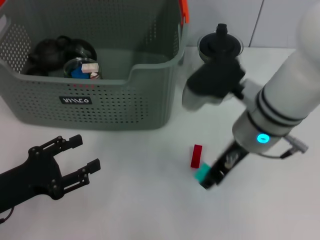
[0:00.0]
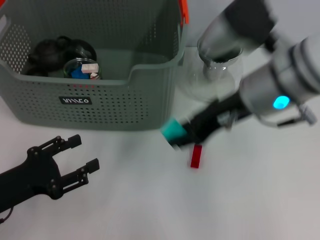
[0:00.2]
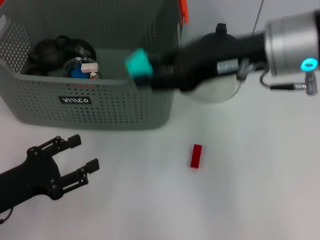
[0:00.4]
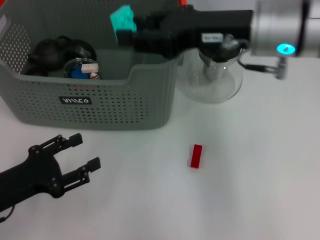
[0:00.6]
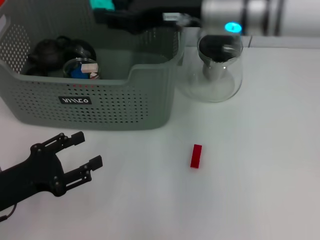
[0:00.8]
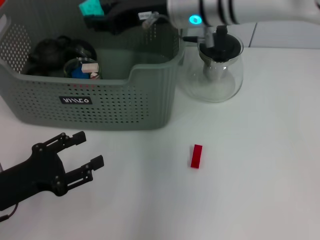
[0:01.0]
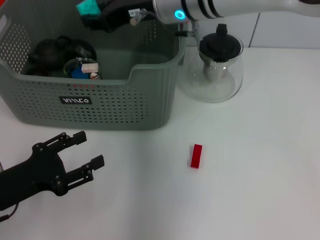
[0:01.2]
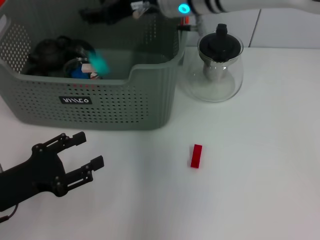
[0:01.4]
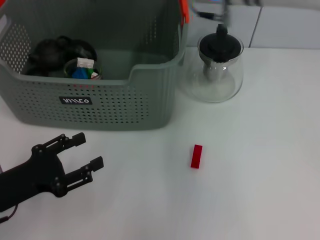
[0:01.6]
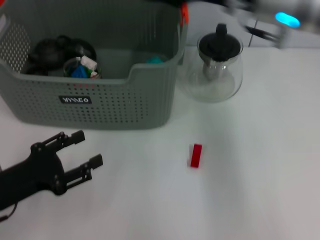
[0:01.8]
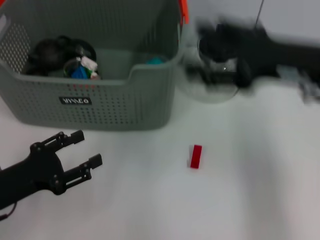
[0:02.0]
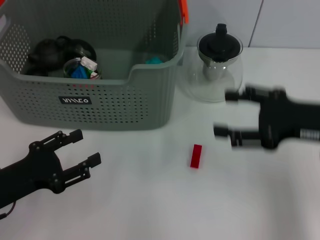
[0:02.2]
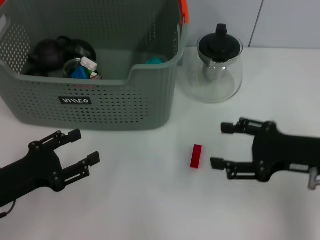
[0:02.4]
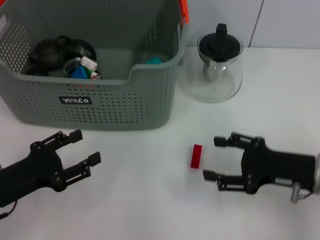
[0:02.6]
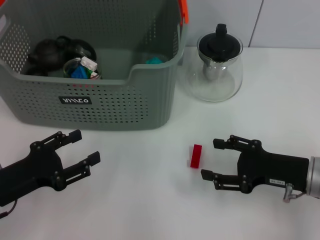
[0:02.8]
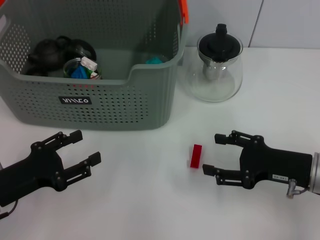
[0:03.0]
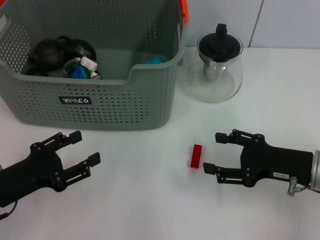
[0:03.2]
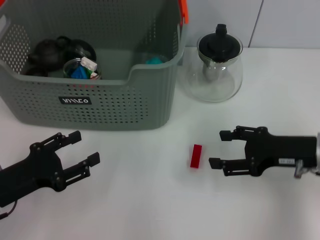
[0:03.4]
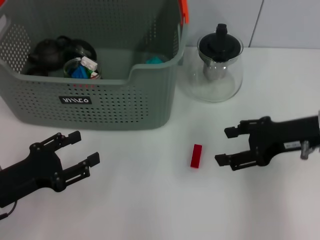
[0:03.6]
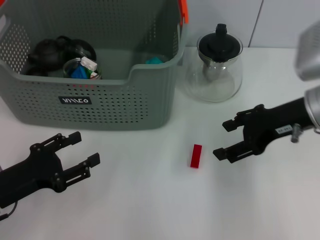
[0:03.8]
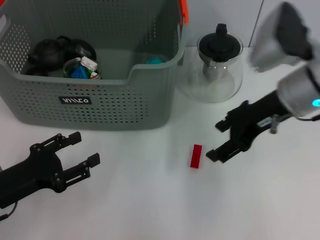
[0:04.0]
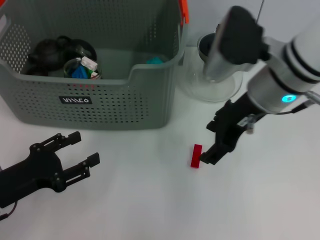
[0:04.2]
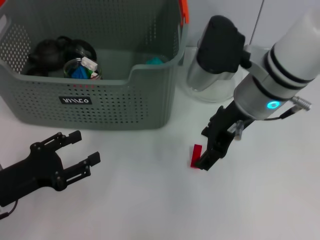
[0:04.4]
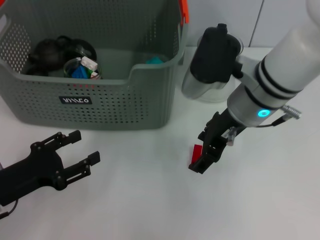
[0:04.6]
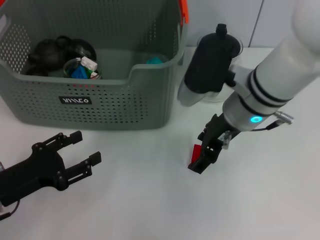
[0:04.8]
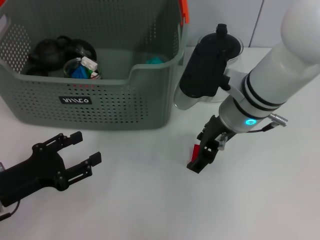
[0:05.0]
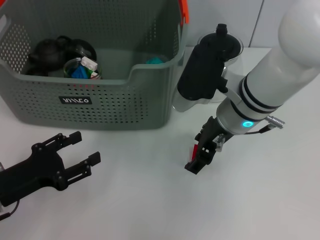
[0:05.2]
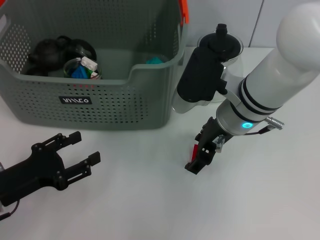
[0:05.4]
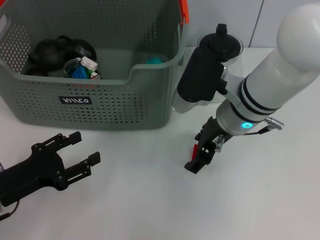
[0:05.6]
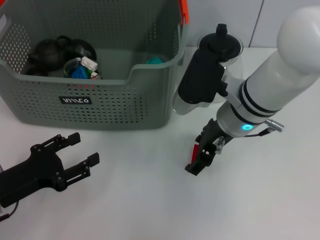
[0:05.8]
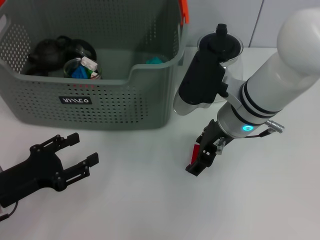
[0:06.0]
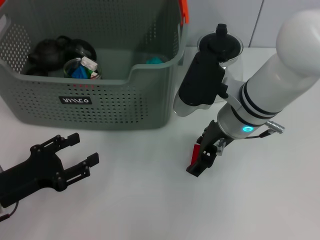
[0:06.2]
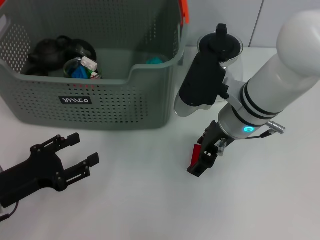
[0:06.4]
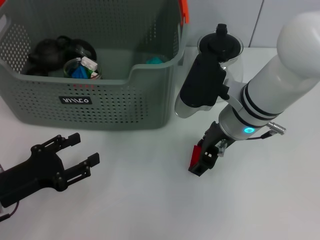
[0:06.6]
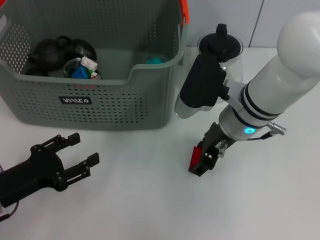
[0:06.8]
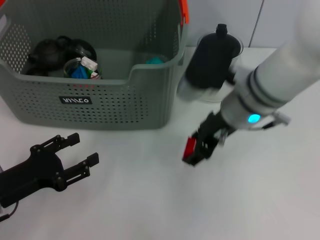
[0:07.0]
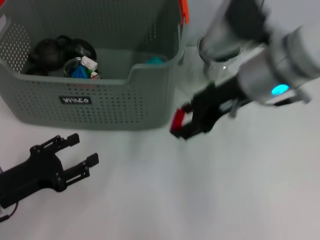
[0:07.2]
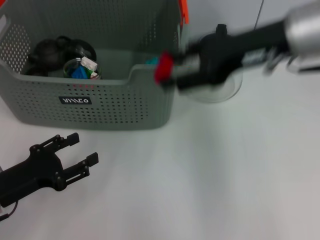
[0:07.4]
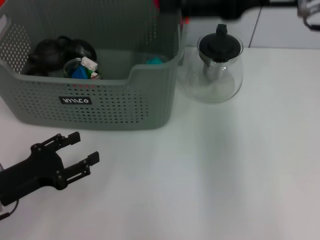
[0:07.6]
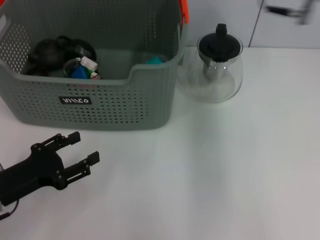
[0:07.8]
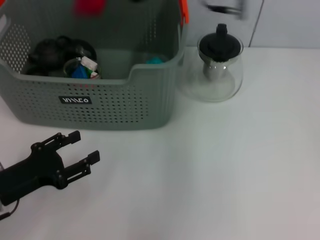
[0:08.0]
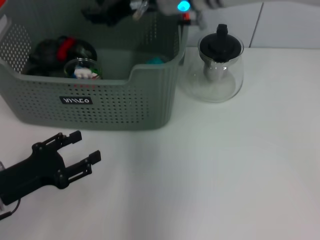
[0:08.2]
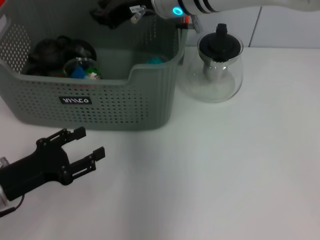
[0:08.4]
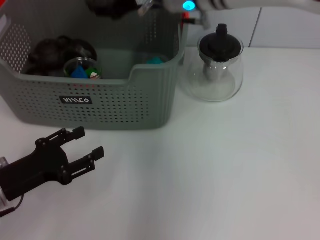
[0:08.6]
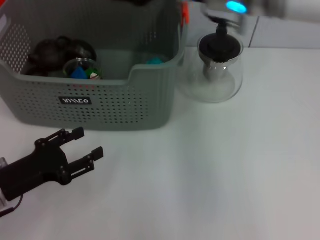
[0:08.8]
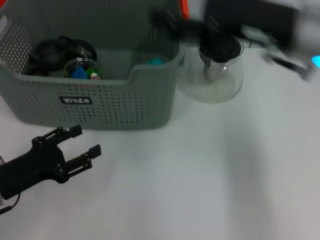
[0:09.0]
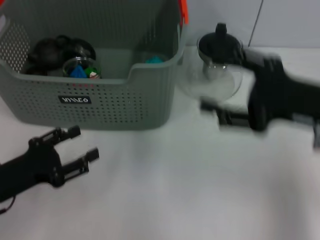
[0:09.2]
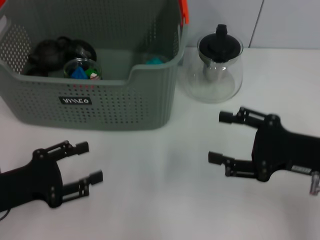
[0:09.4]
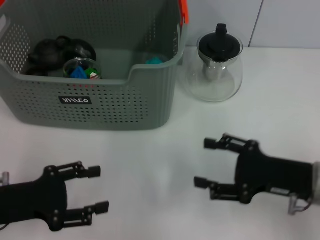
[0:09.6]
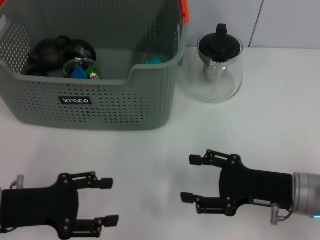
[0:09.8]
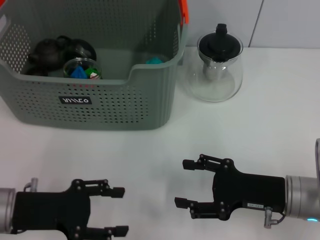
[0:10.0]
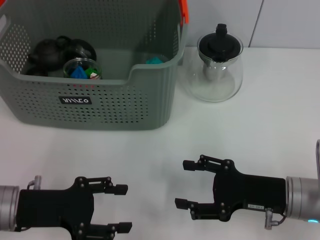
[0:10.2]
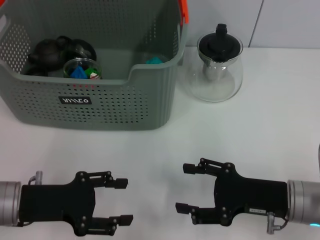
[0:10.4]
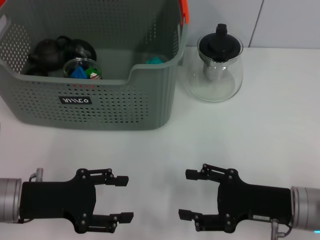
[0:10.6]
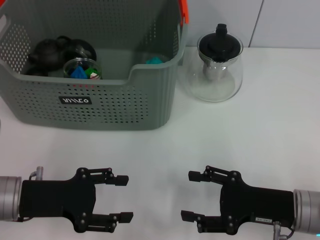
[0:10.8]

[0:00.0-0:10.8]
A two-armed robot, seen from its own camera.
Task of the whole recording: pick up the teacup on the table and place it into the storage bin, pick up the block on the table and place it into the storage bin.
Step, 0:00.0 to 0:01.4: Place the light blue block in the storage box with right gripper.
Step, 0:01.6 to 0:06.6: Grasp the red block with right gripper.
Step, 0:07.0 to 0:08.2: Place the red block in the storage box with right gripper.
0:00.0 to 0:01.6: The right gripper is displaced forward and upward by roughly 15 cm.
0:01.6 to 0:03.0: The right gripper travels downward, to the right and backward by approximately 30 cm.
0:03.0 to 0:04.6: The right gripper is displaced to the left, upward and forward by approximately 20 cm.
0:04.6 to 0:06.2: There are only small adjustments of the grippers.
0:06.2 to 0:07.8: The right gripper is displaced upward by about 15 cm.
0:07.8 to 0:09.2: The right gripper travels downward, backward and to the right by some 15 cm, and closes and opens again.
0:09.2 to 0:10.8: The right gripper goes roughly 15 cm downward and backward.
